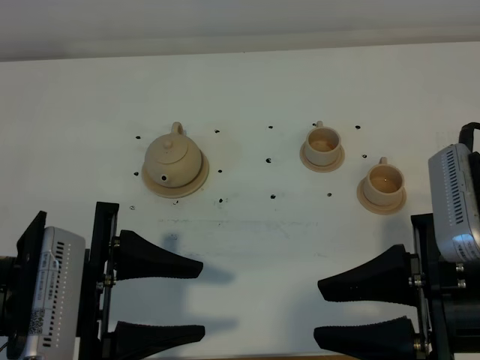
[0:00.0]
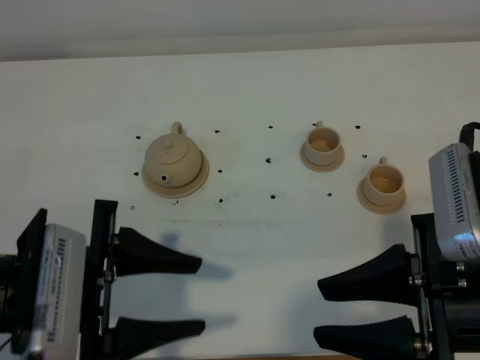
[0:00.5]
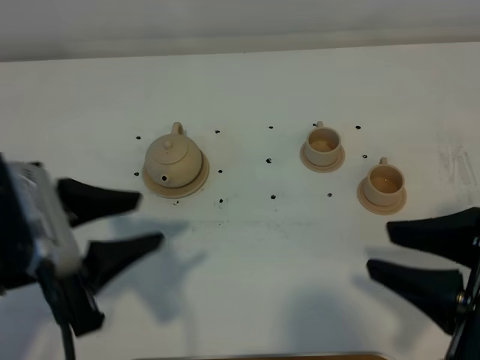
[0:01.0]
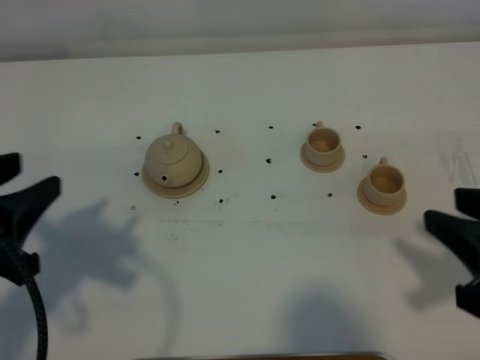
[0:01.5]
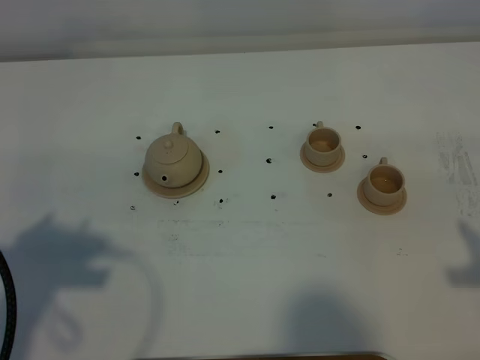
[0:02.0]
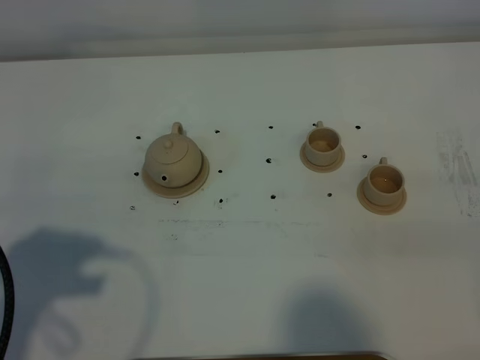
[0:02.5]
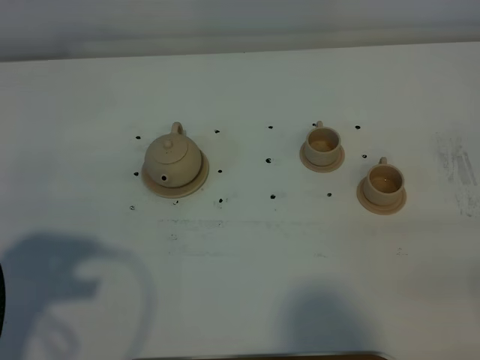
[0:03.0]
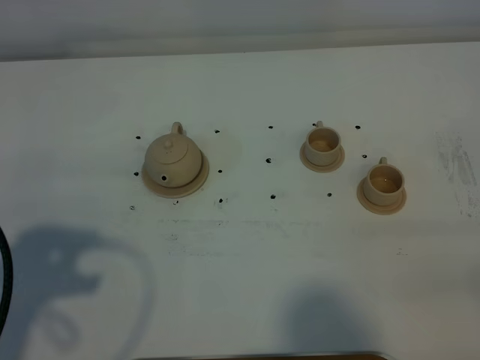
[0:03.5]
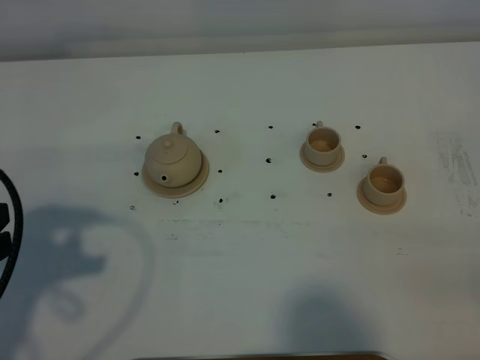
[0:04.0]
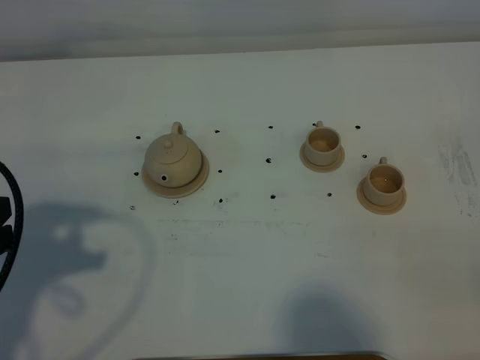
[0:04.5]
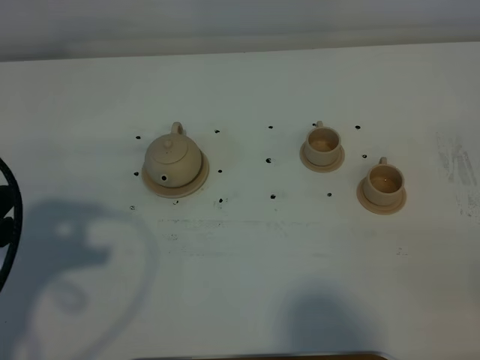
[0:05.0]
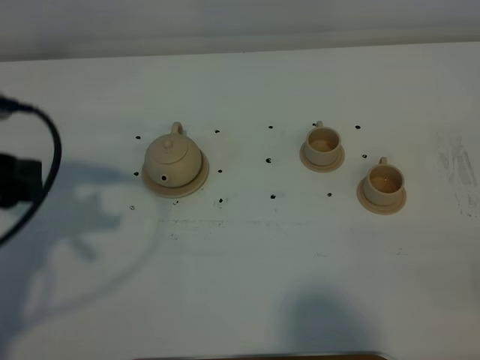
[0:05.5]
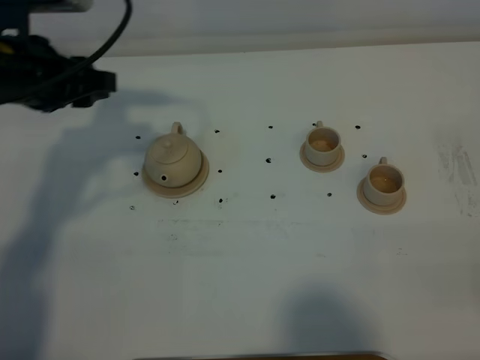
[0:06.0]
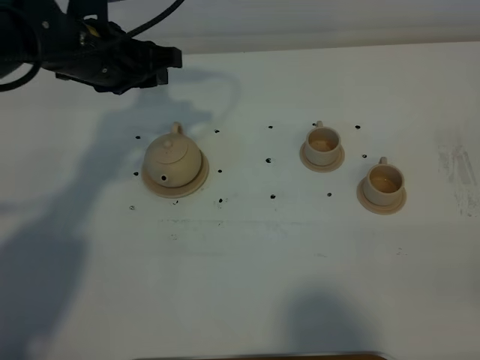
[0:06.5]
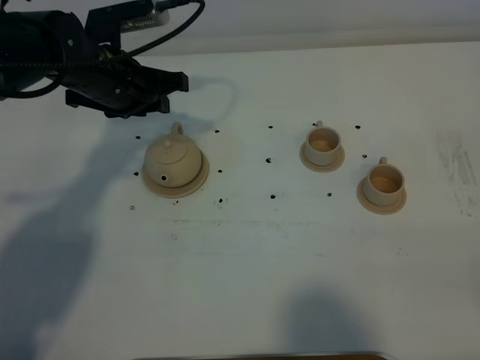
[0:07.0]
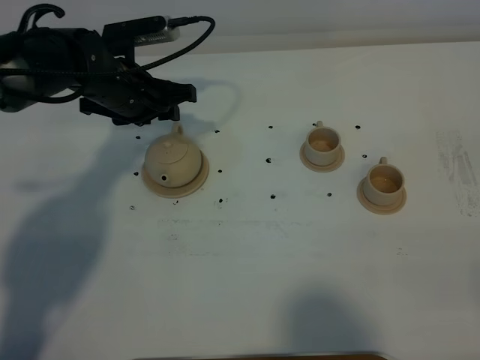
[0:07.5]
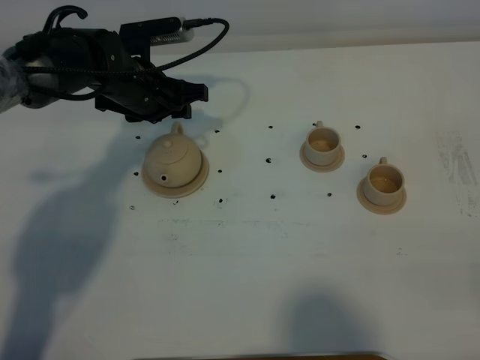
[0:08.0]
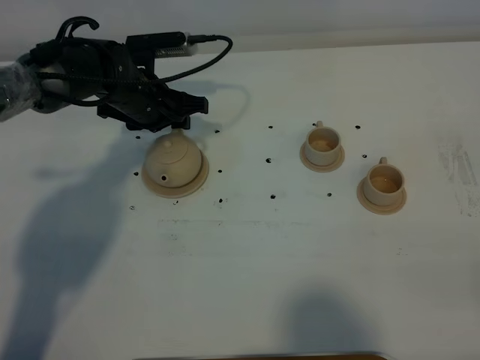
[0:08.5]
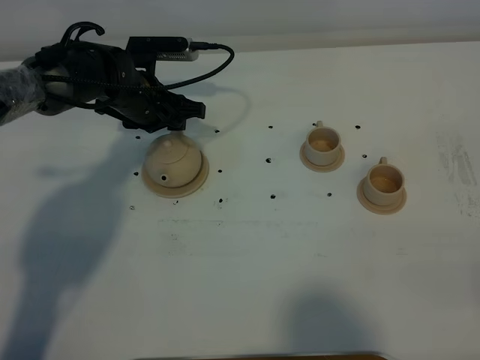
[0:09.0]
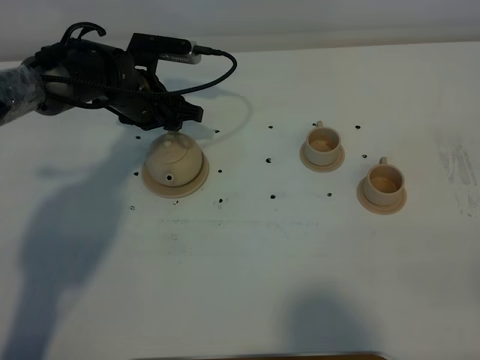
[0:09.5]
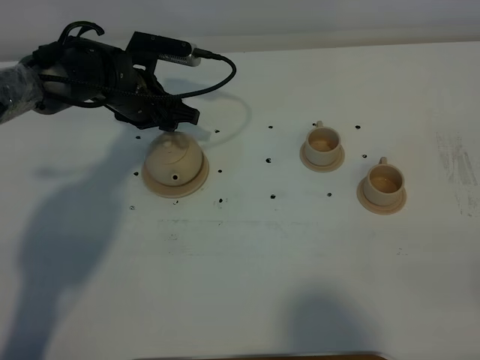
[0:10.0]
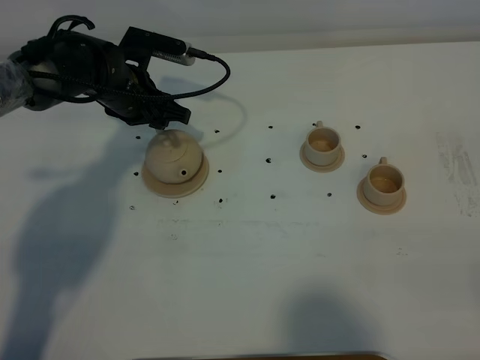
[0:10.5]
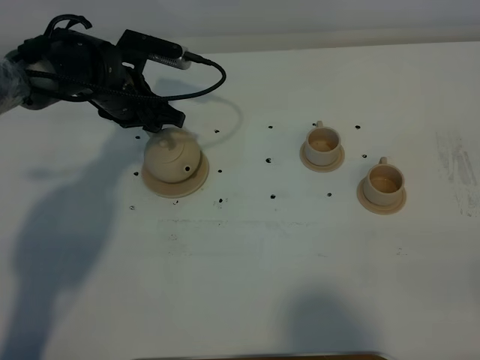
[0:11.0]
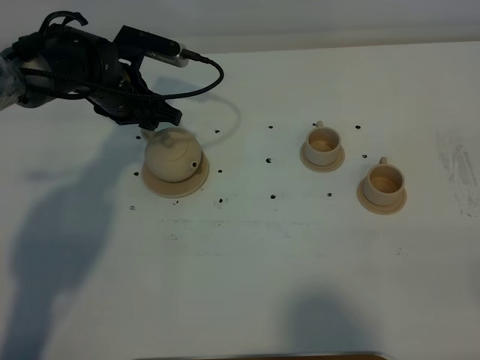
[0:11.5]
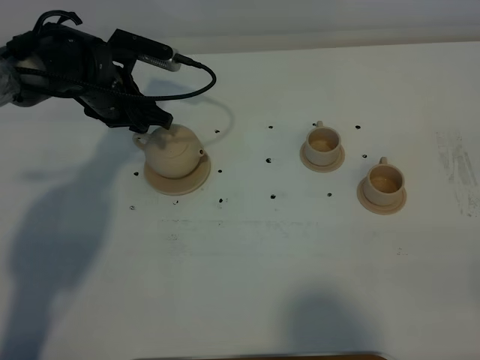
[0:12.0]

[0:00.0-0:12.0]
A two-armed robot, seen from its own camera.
Task of the whole recording: grasp the brown teapot and pour the tea into the two brown teacups one by one, put the brown teapot back in its original place.
0:00.0 to 0:02.0: The right gripper travels to the right by roughly 10 cm, while the left gripper shifts about 10 cm to the left and upward.
0:04.0 to 0:06.0: The left gripper shifts roughly 20 cm forward.
0:06.0 to 0:08.0: The left gripper goes approximately 15 cm downward, forward and to the right.
0:08.0 to 0:10.0: The grippers stay close to where they were, moving slightly.
0:10.0 to 0:12.0: The grippers move only a little.

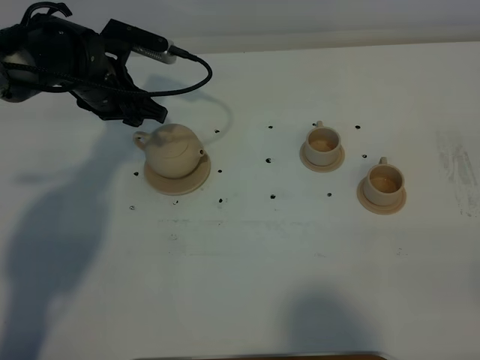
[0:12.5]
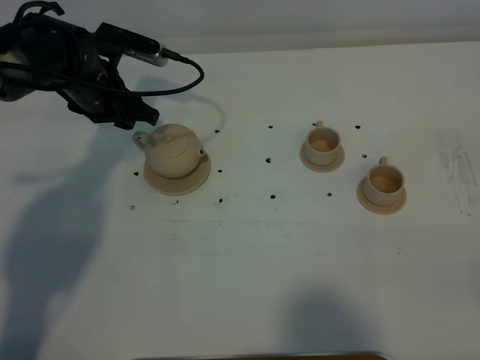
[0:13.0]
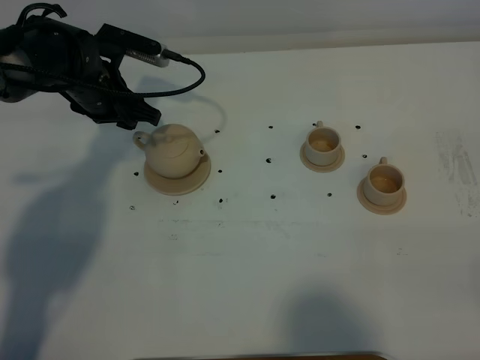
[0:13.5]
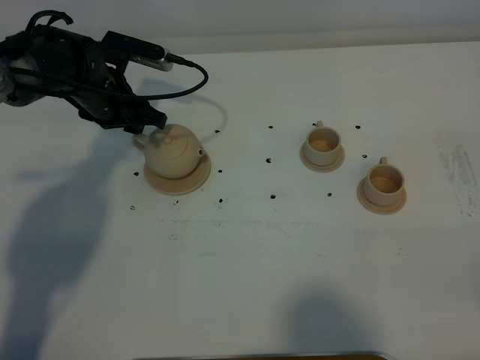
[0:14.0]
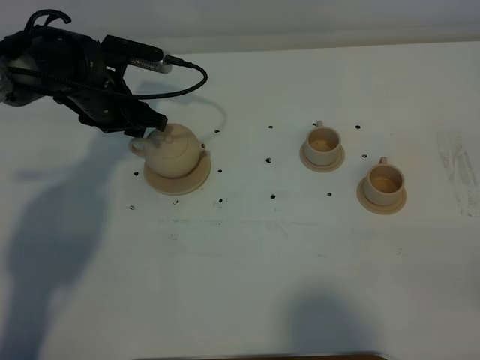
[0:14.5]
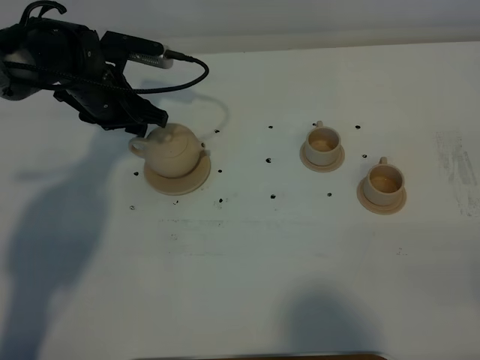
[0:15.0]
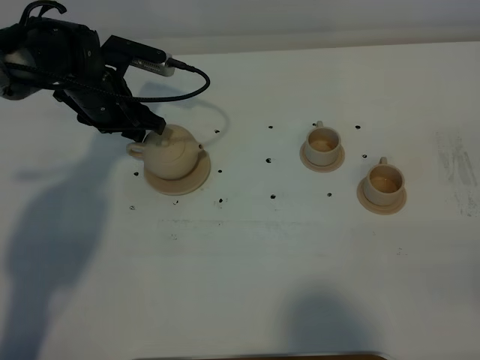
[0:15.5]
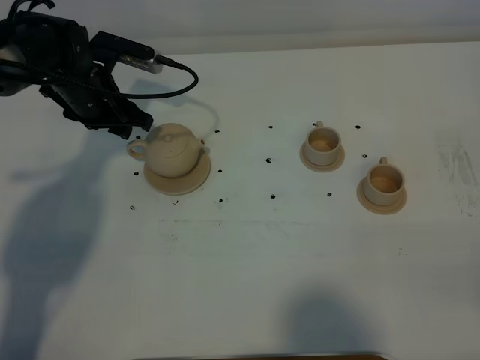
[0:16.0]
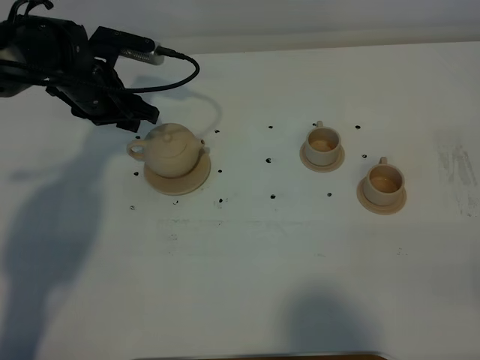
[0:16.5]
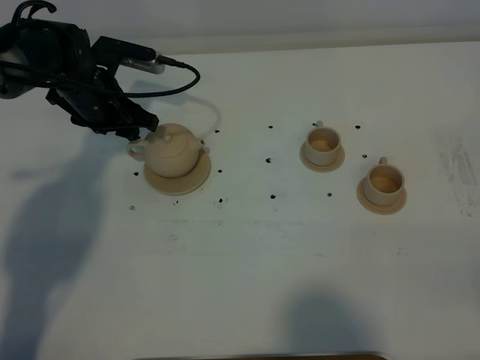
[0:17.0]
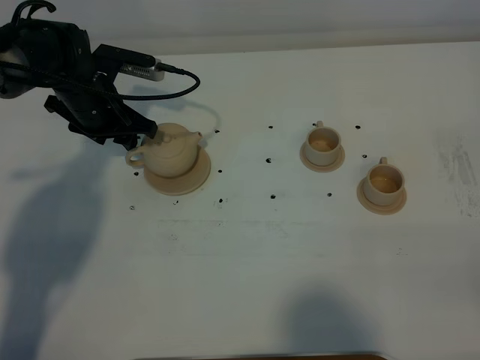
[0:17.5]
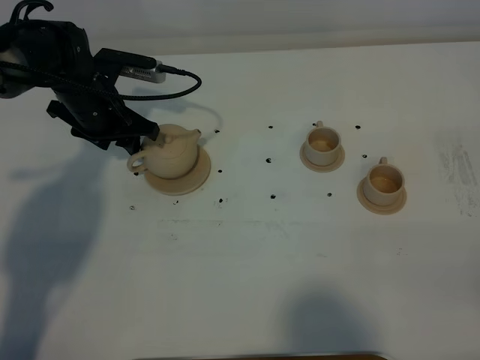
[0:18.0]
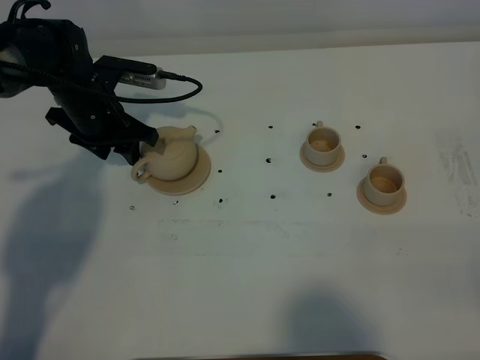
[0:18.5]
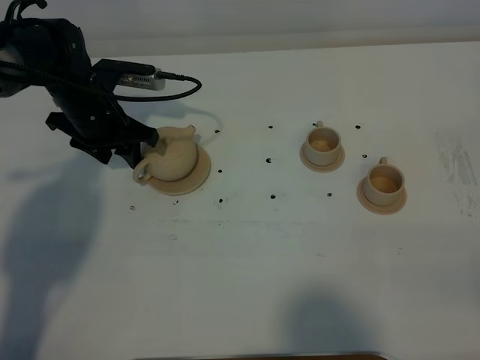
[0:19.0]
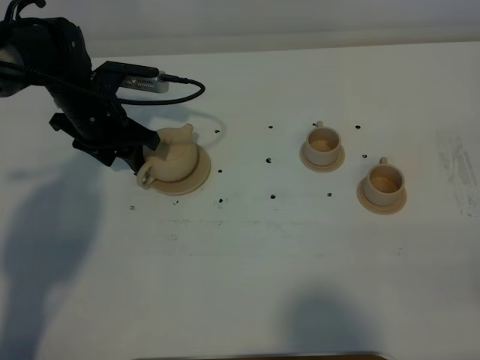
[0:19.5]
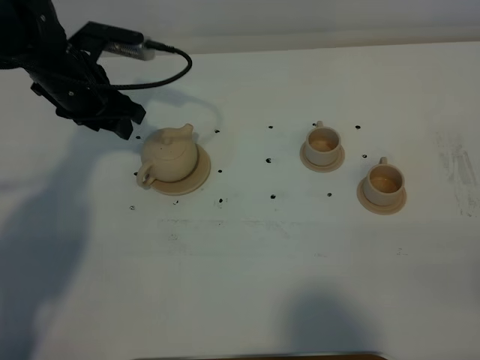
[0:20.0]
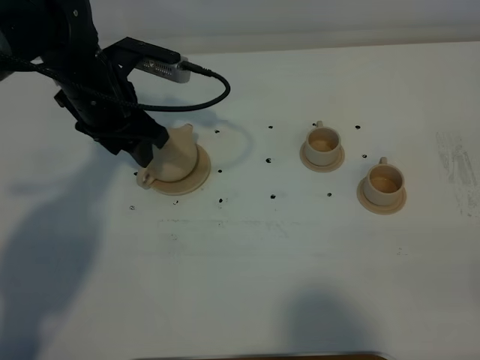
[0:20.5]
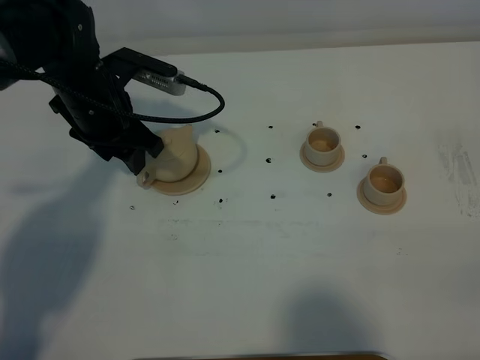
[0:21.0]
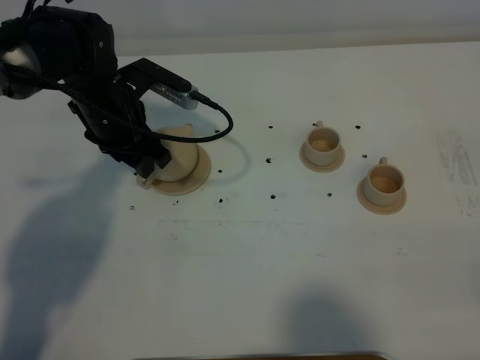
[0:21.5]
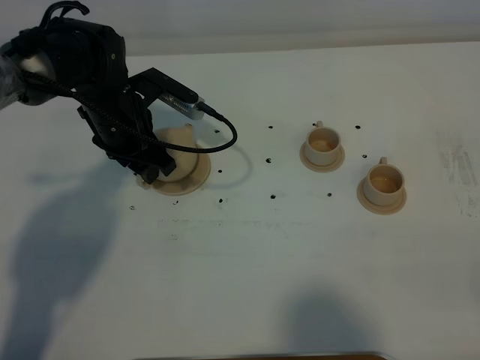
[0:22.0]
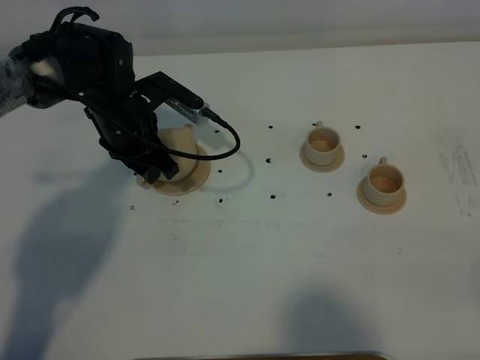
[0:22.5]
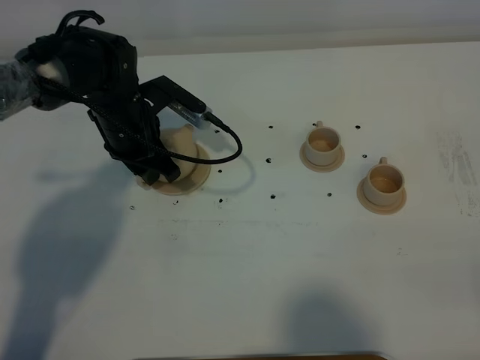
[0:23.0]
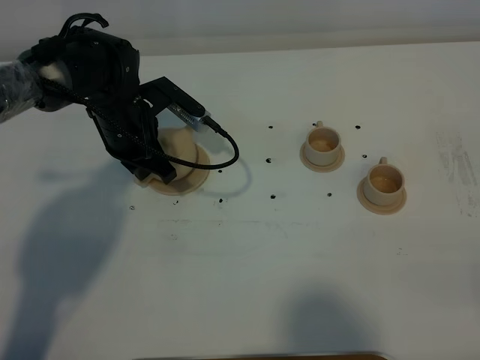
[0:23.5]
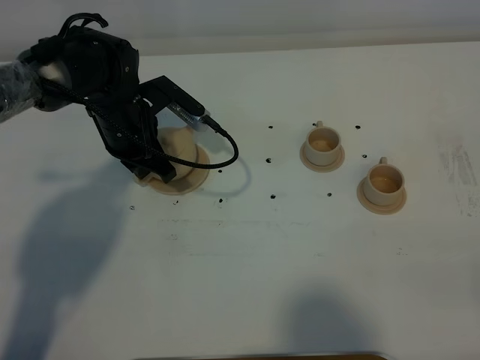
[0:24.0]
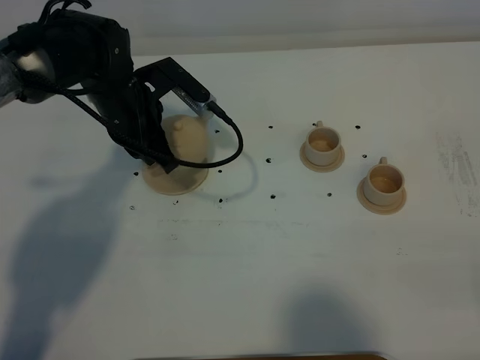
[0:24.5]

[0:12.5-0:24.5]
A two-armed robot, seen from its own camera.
Task of the whole recording: grasp the brown teapot and pour the tea into the two brown teacups one by one, put the brown teapot back in its original place.
Step, 0:12.5 to 0:24.0: Pick up the teapot with the left gripper.
0:12.5 to 0:16.5: There are only small adjustments of the grippers.
0:16.5 to 0:18.5: There are only small adjustments of the grippers.
0:18.5 to 0:20.5: The left gripper is displaced upward by roughly 5 cm.
0:20.5 to 0:22.5: The left gripper travels downward by roughly 5 cm.
0:22.5 to 0:24.5: The left gripper closes its fingers.

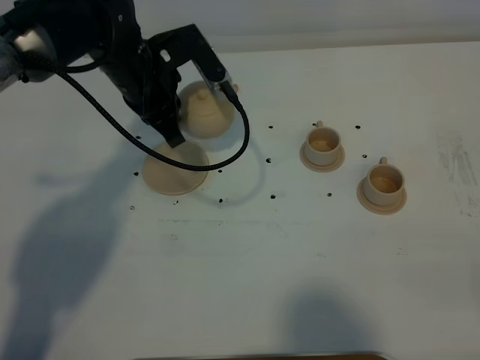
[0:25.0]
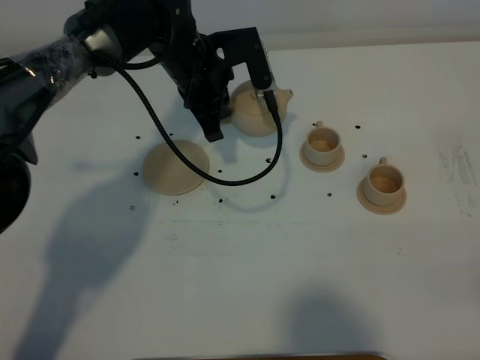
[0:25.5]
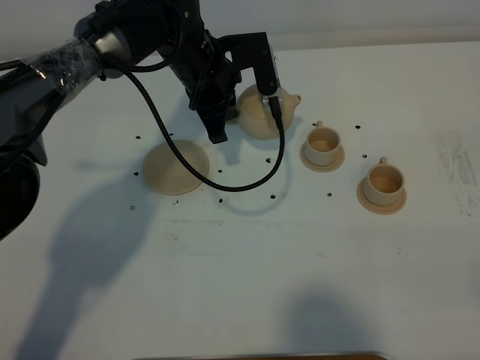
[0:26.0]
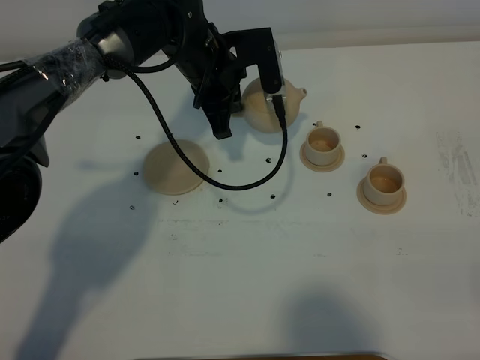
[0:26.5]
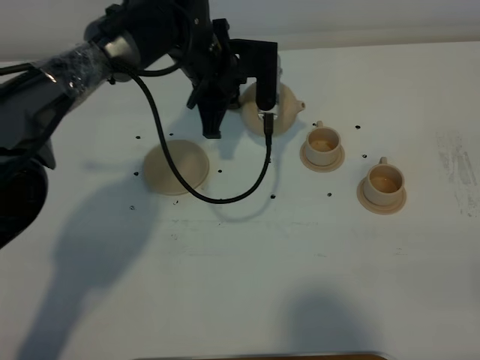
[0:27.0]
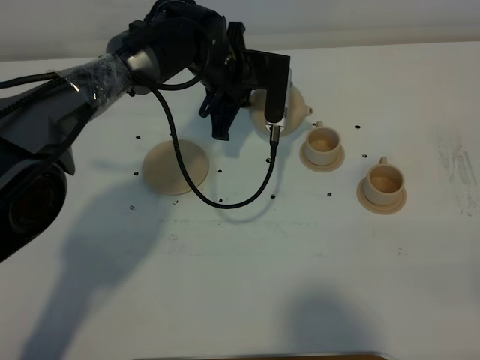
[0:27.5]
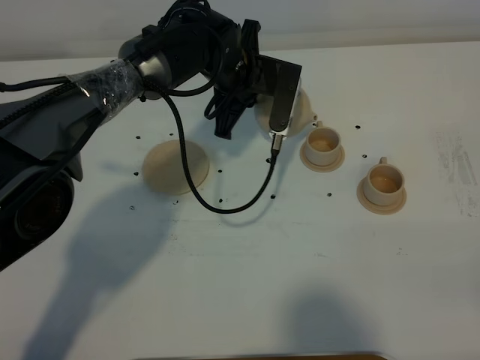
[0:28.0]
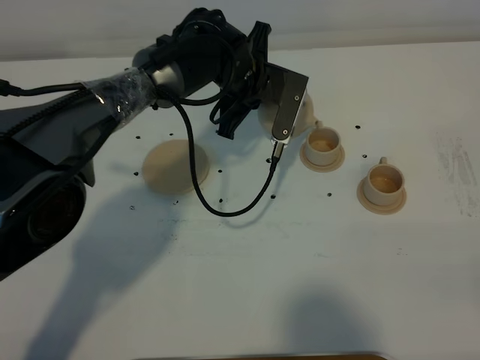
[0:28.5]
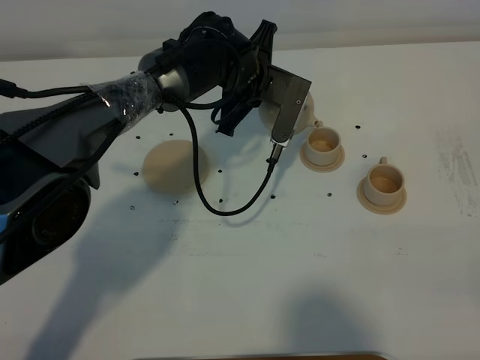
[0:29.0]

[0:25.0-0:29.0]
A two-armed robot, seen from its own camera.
Task of the whole recording: grasp the brown teapot and pour the tea into the two brown teacups one by one, put the brown teapot back in its original place.
0:25.0 to 0:27.0: The left gripper shifts roughly 10 cm to the right.
